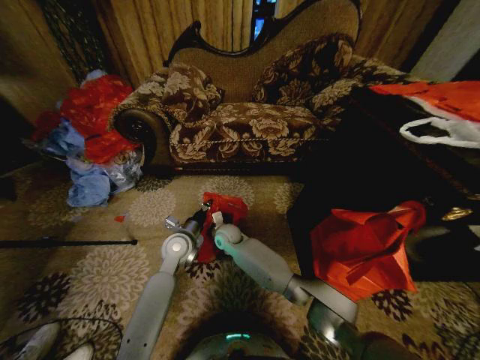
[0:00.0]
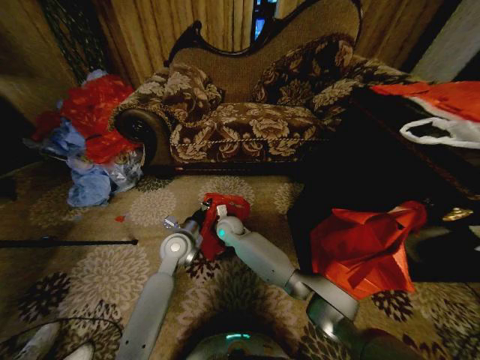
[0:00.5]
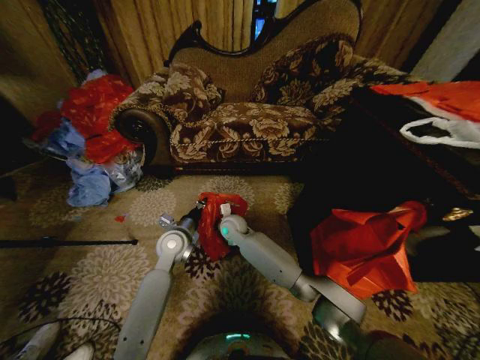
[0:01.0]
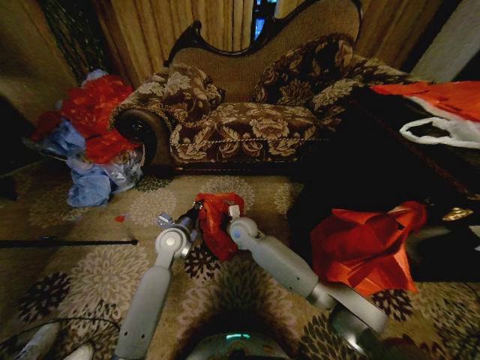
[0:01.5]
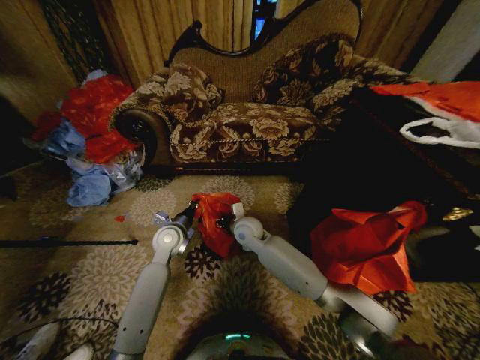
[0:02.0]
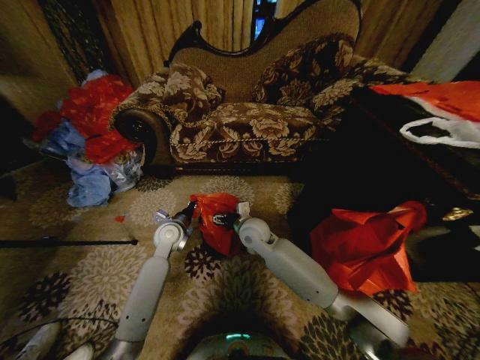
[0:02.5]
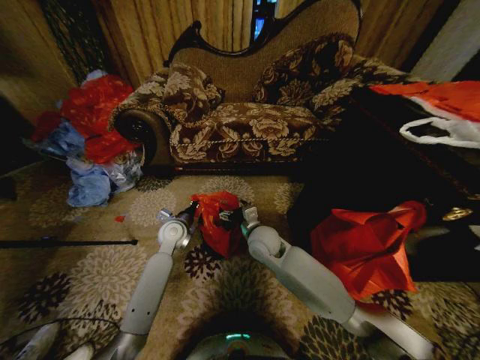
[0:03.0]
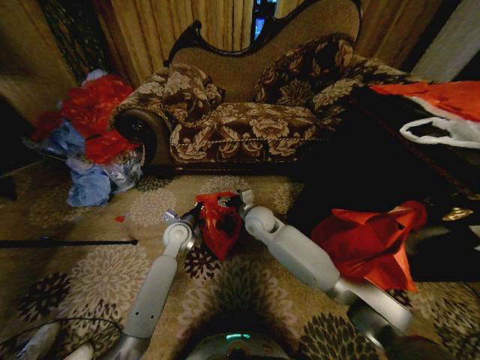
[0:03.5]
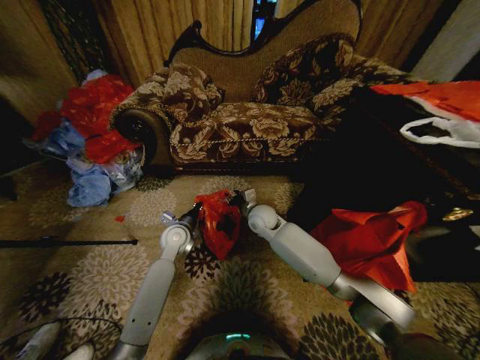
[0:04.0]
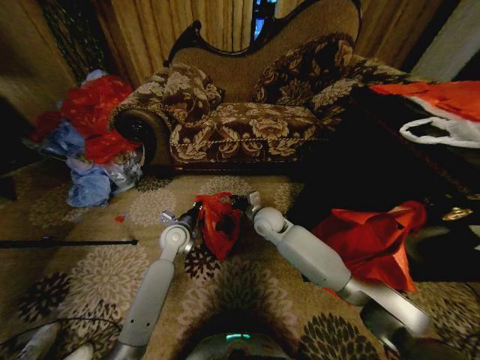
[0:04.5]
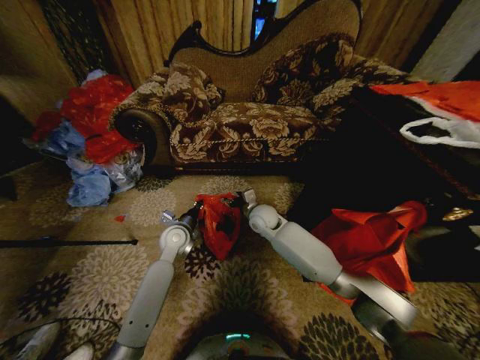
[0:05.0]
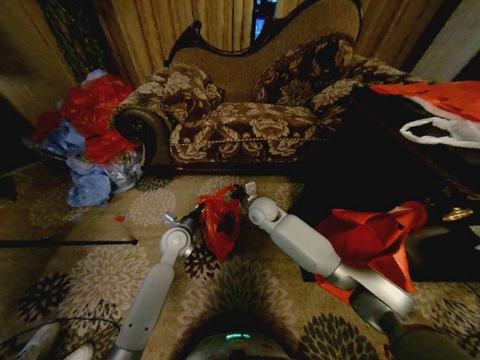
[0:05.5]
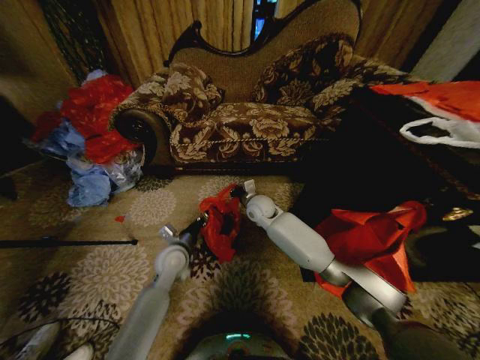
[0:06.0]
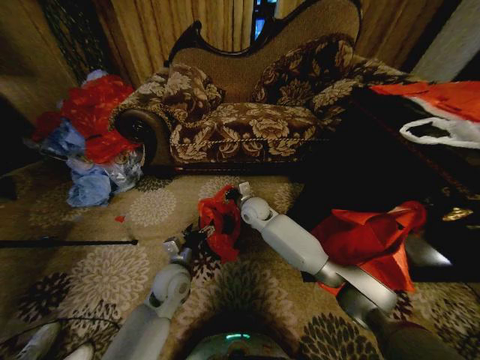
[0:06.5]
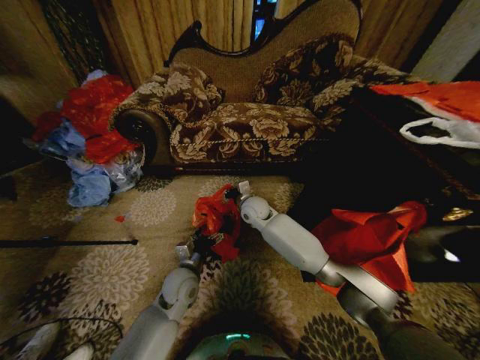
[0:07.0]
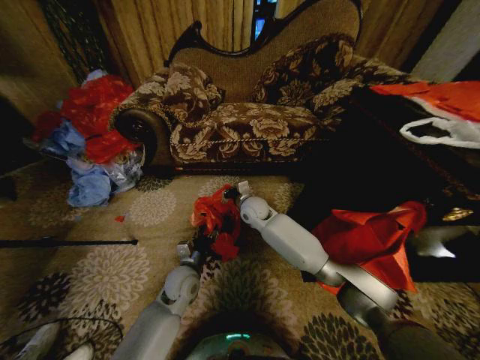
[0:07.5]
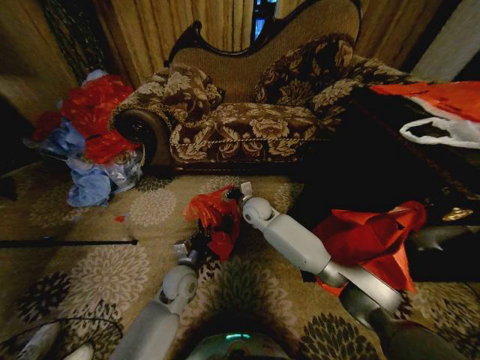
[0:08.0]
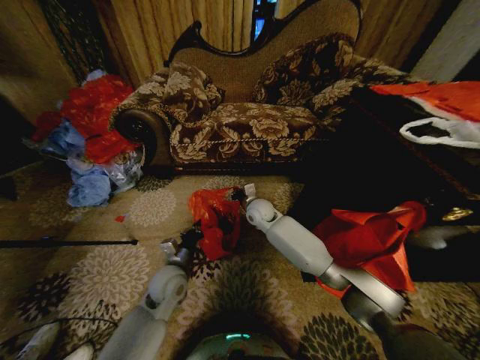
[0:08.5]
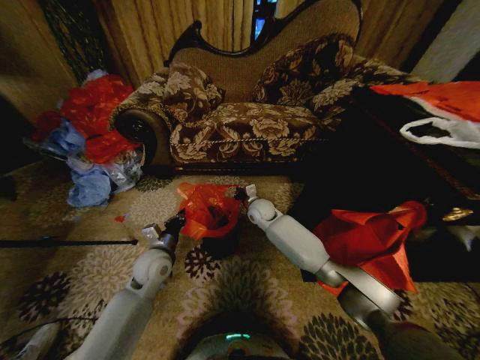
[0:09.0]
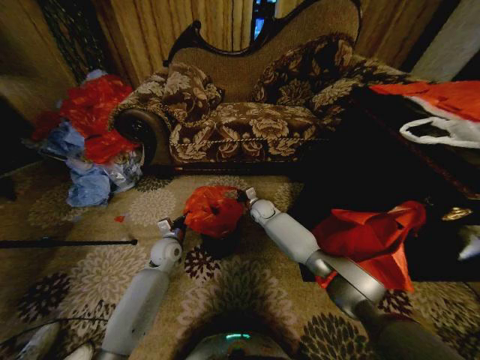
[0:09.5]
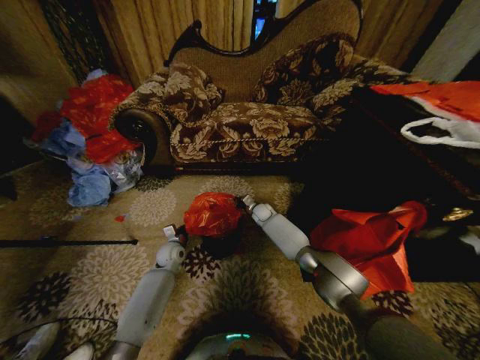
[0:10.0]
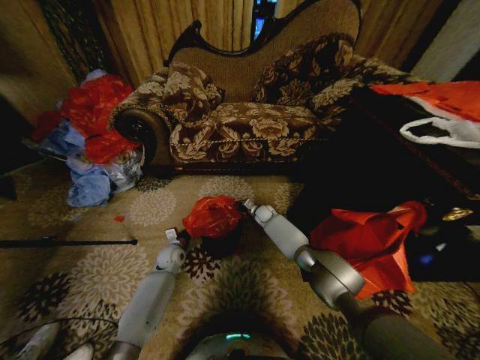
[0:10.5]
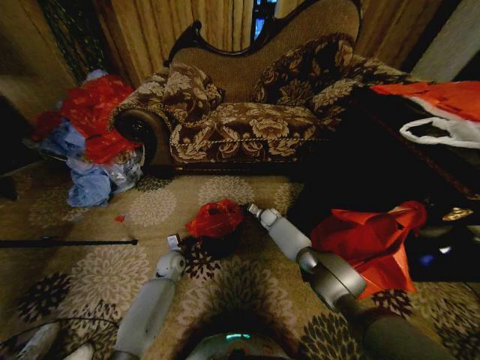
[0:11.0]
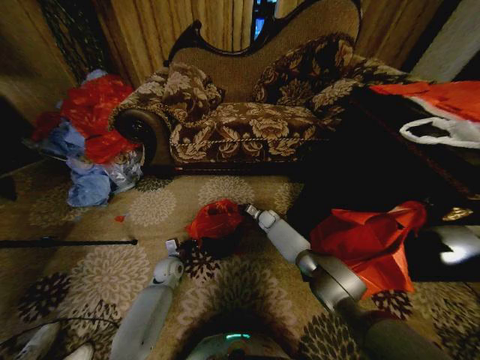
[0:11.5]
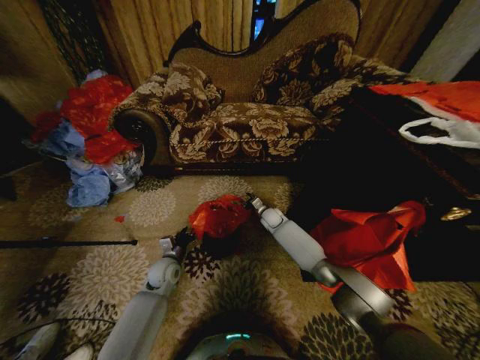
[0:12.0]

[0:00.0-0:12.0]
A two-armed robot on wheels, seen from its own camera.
Task of the whole recording: Place a garbage bag over the trash bin.
0:00.0 to 0:02.0: The right gripper travels to the right and upward by some 10 cm.
0:02.0 to 0:04.0: The right gripper changes place by about 5 cm, and closes its fingers.
0:04.0 to 0:06.0: The left gripper heads backward, covering roughly 5 cm, and opens; the right gripper closes its fingers.
0:06.0 to 0:08.0: The left gripper goes some 5 cm downward, and opens, then closes once more.
0:08.0 to 0:10.0: The left gripper heads forward, to the left and downward, covering about 15 cm, while the right gripper heads downward and forward, covering roughly 15 cm.
0:10.0 to 0:12.0: The left gripper is displaced backward by roughly 5 cm, and opens its fingers. The right gripper opens its fingers.

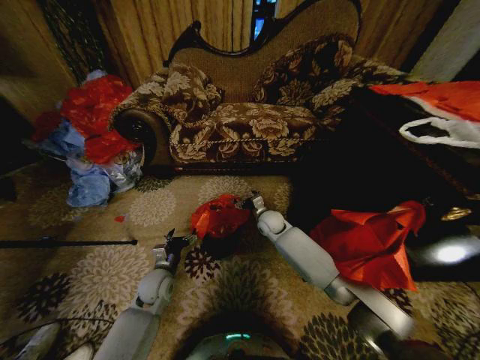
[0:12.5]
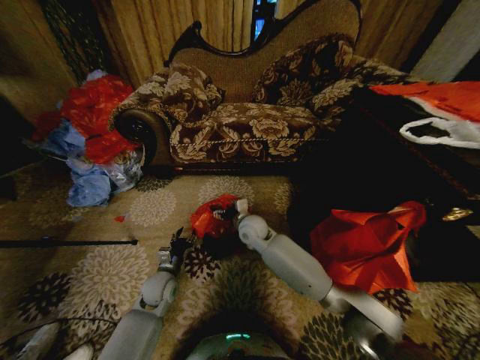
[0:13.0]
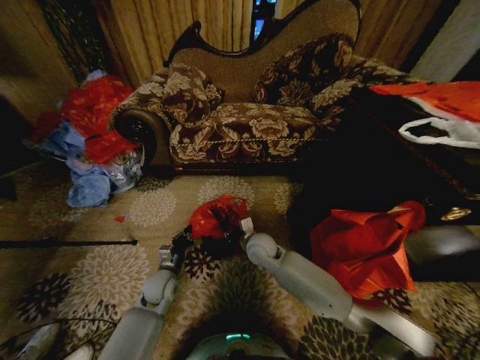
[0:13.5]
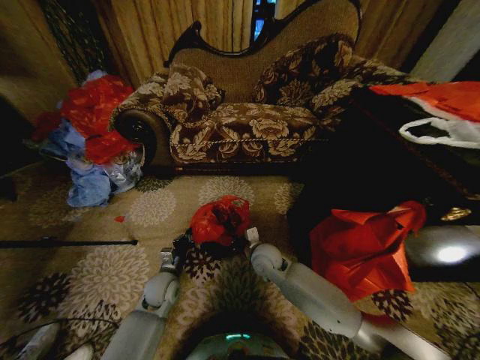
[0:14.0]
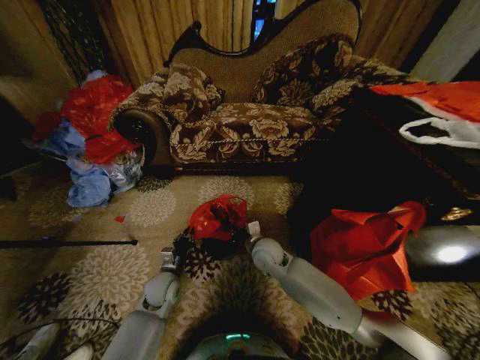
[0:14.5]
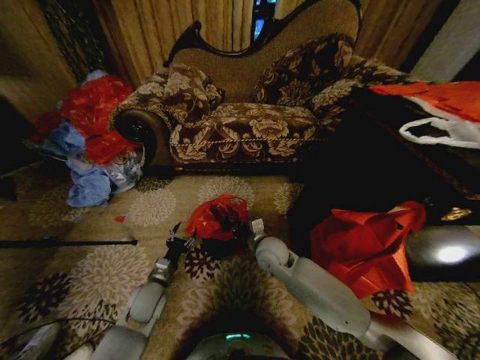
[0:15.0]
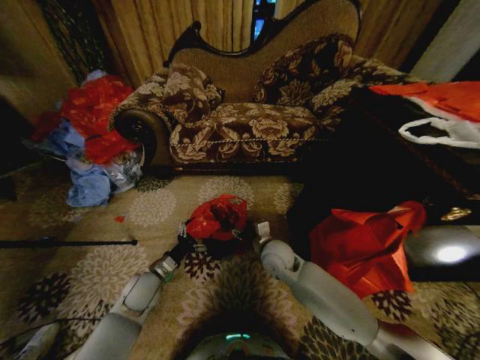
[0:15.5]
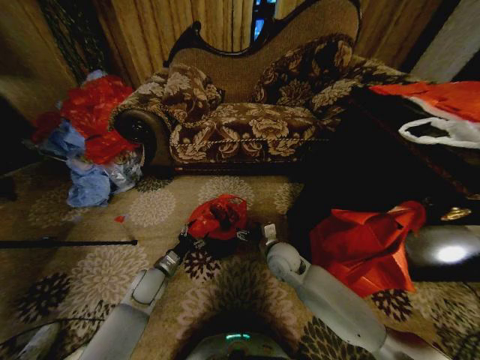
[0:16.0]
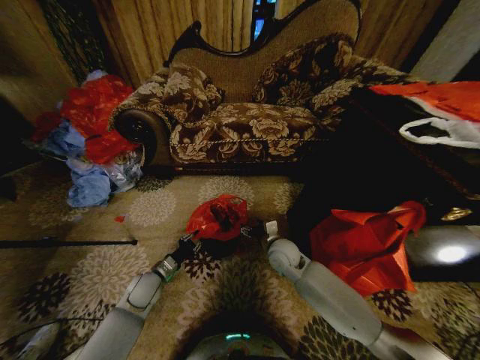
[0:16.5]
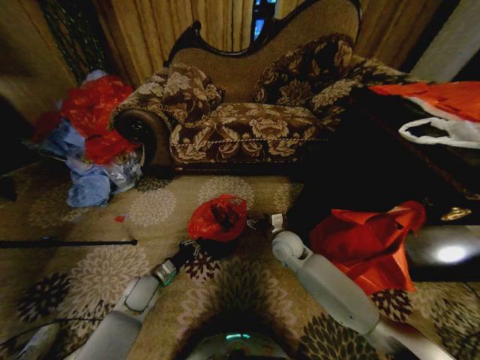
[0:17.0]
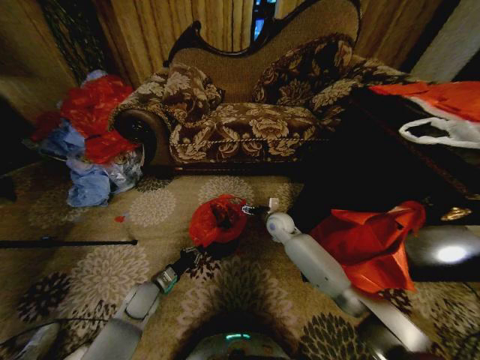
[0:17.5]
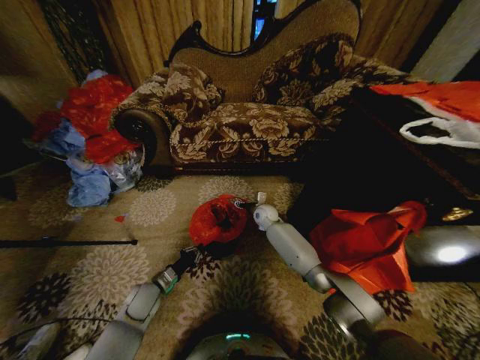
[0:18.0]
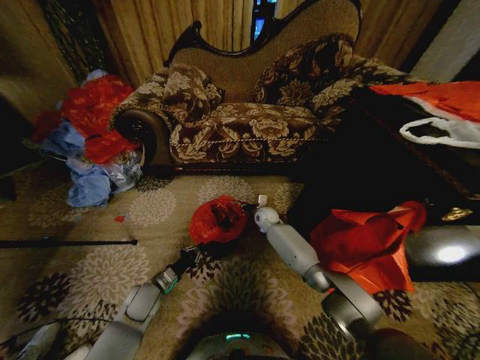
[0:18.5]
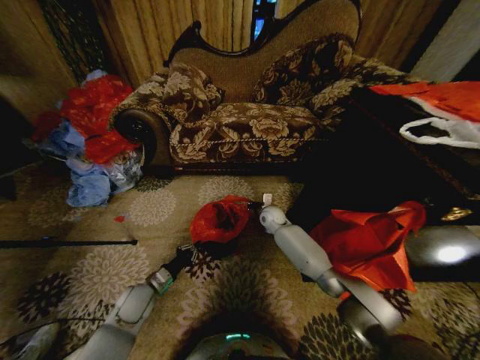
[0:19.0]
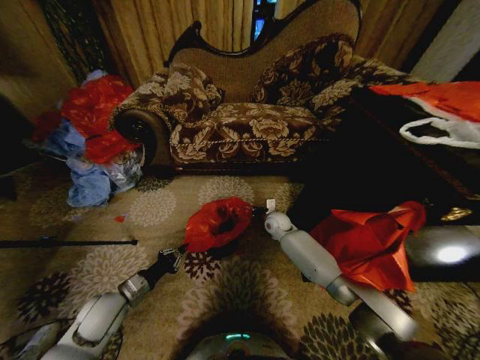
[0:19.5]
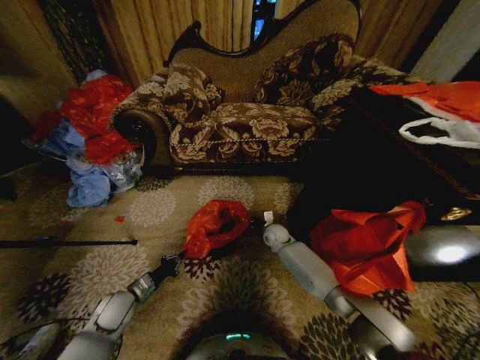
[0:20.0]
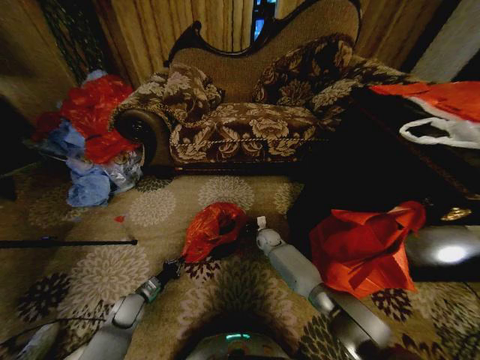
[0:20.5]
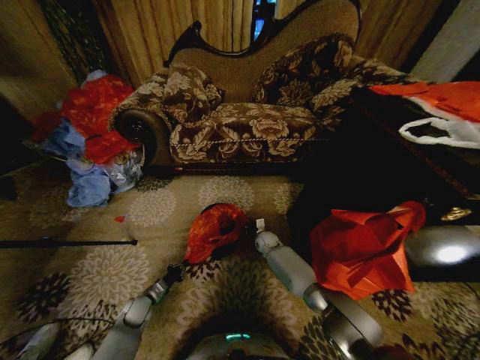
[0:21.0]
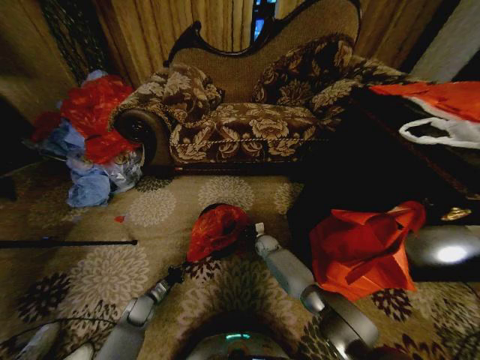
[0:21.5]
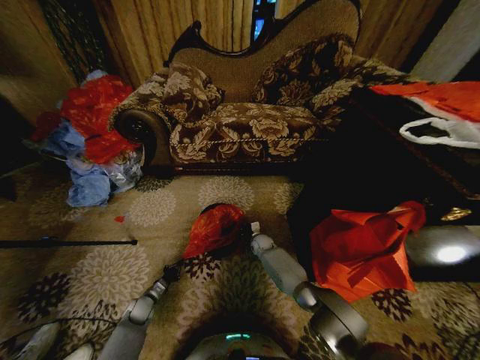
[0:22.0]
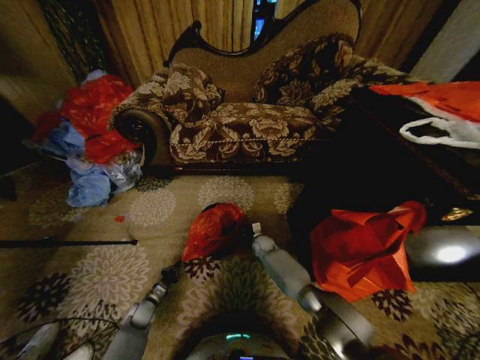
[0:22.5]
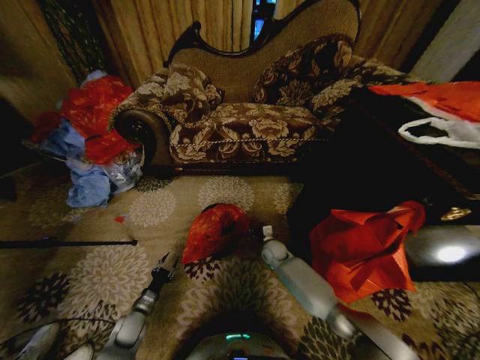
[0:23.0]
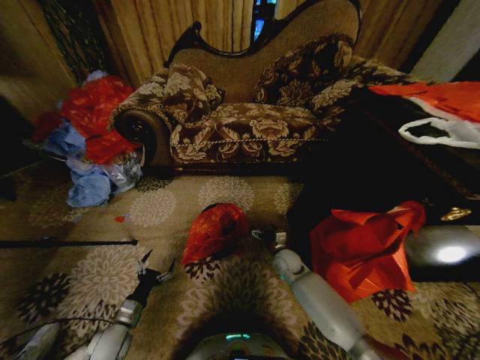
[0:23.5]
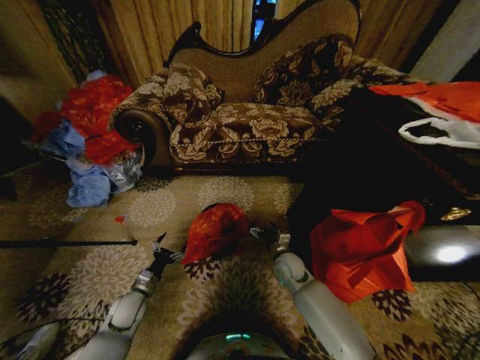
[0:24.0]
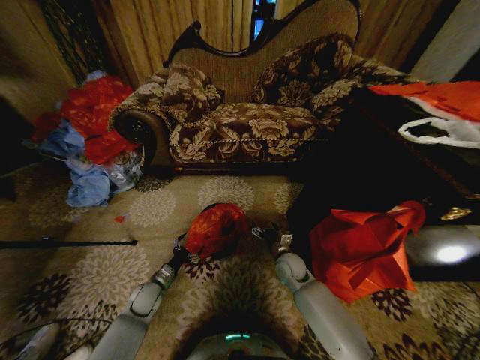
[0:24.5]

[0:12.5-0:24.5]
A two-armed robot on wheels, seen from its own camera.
Task of the whole recording: Place a garbage bag over the trash bin.
0:12.5 to 0:14.5: The left gripper closes up, while the right gripper travels backward by about 15 cm, and closes up.
0:14.5 to 0:16.5: The right gripper travels to the right by about 5 cm, and opens its fingers. Meanwhile the left gripper shifts some 5 cm to the left, and opens, then closes again.
0:16.5 to 0:18.5: The right gripper moves forward, roughly 20 cm, and closes its fingers.
0:18.5 to 0:20.5: The left gripper shifts some 10 cm to the left and downward. The right gripper travels downward and backward by some 10 cm.
0:20.5 to 0:22.5: The left gripper goes some 10 cm downward.
0:22.5 to 0:24.5: The left gripper goes roughly 10 cm upward, and opens its fingers. The right gripper travels backward, upward and to the right by approximately 15 cm, and opens up.

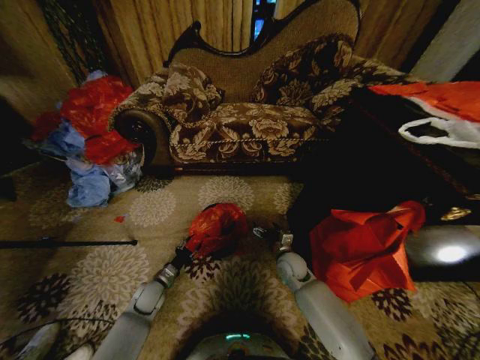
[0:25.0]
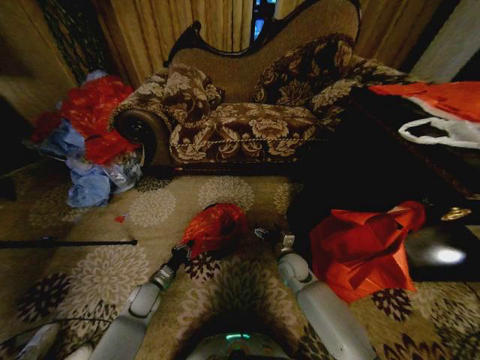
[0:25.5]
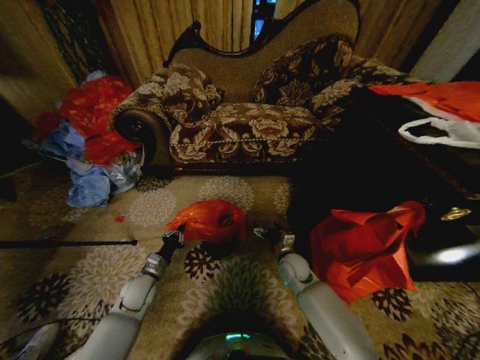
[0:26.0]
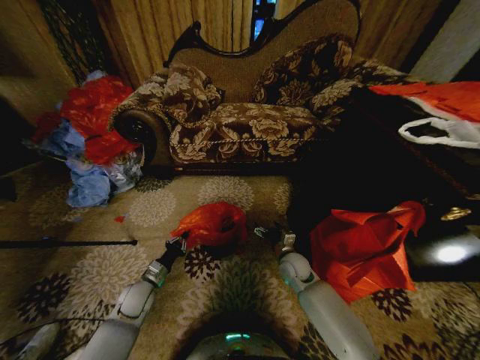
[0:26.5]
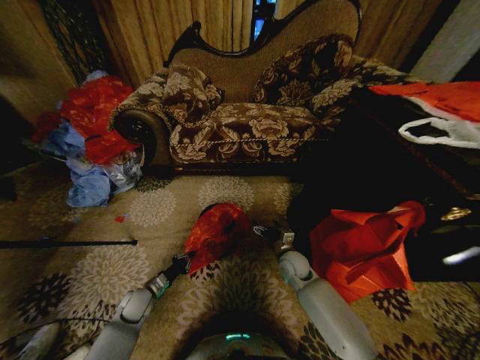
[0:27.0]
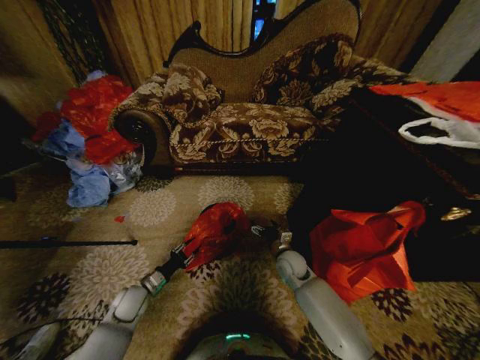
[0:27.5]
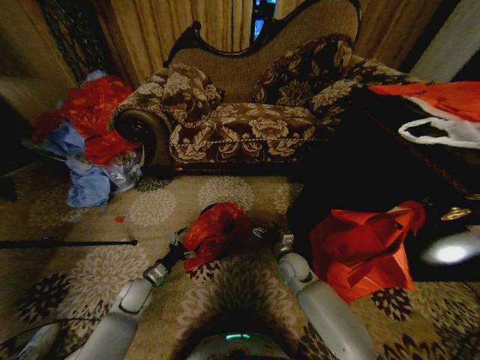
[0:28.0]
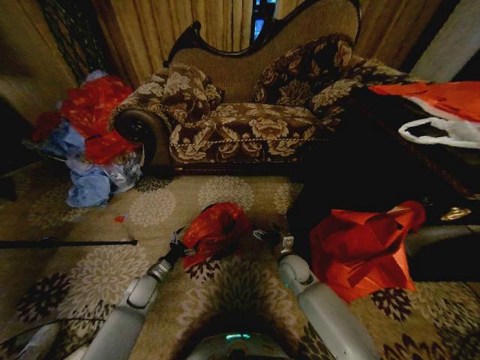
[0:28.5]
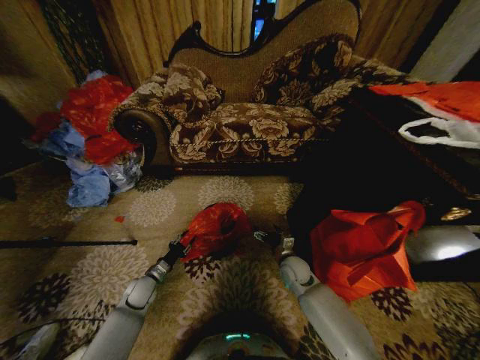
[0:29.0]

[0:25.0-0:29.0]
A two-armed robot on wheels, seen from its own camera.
Task of the whole recording: Place a garbage bag over the trash bin.
0:25.0 to 0:27.0: The left gripper closes its fingers.
0:27.0 to 0:29.0: The left gripper opens.
